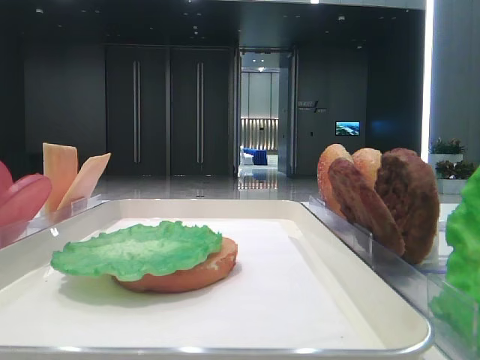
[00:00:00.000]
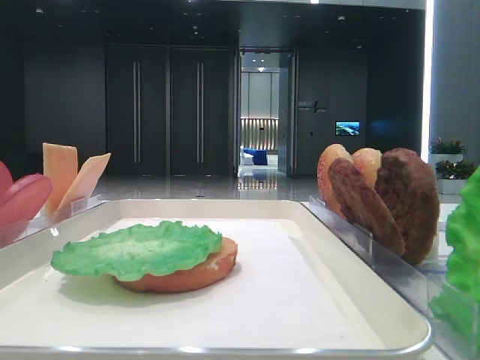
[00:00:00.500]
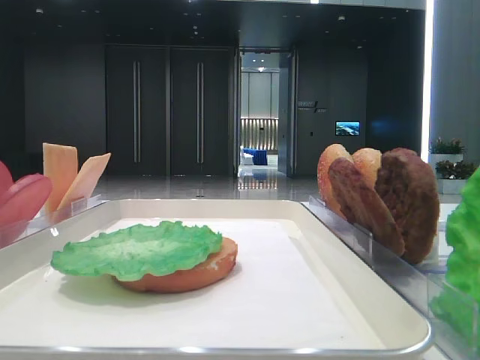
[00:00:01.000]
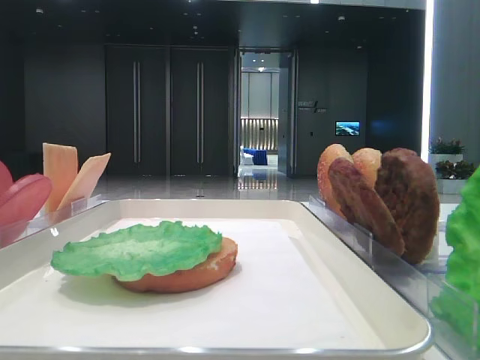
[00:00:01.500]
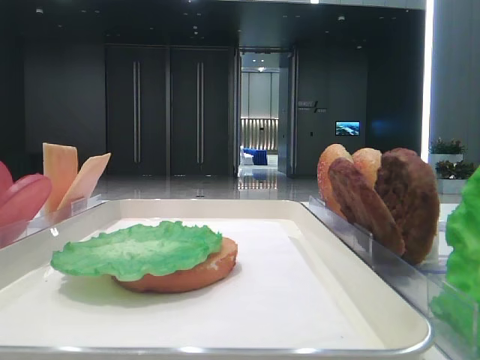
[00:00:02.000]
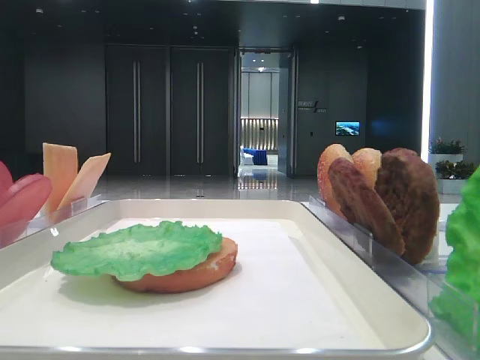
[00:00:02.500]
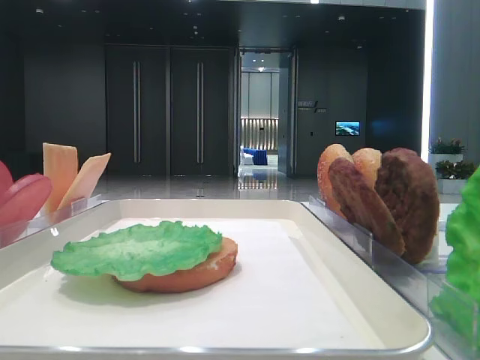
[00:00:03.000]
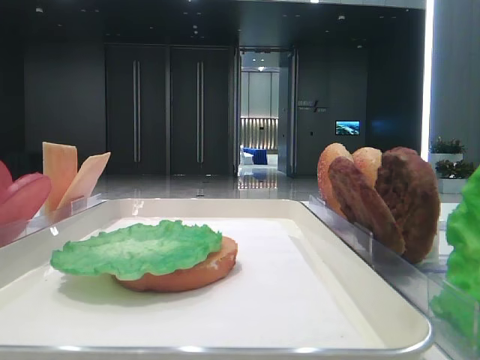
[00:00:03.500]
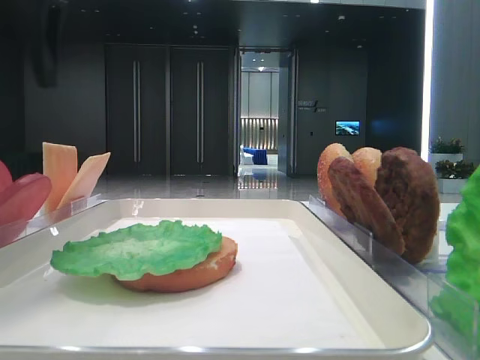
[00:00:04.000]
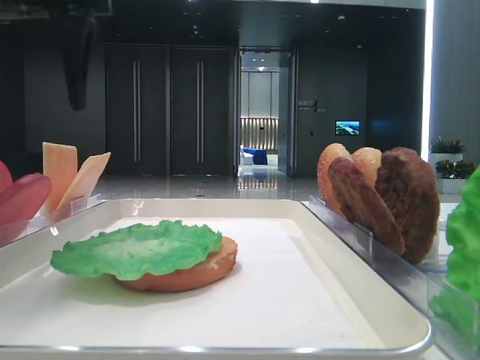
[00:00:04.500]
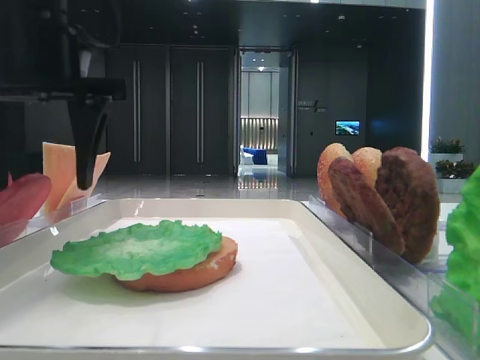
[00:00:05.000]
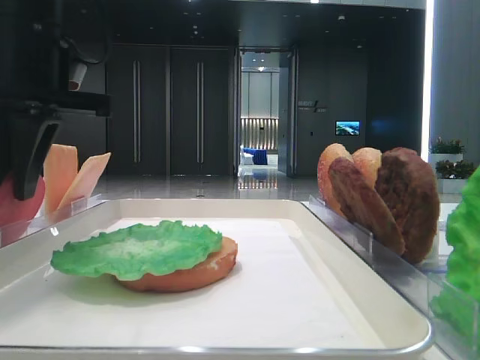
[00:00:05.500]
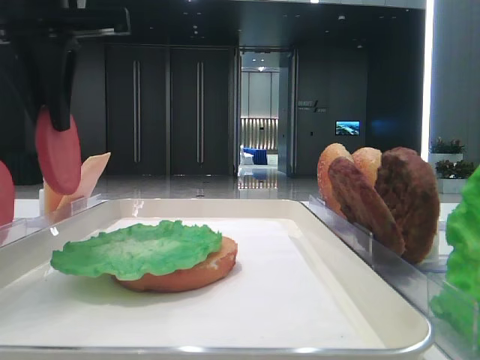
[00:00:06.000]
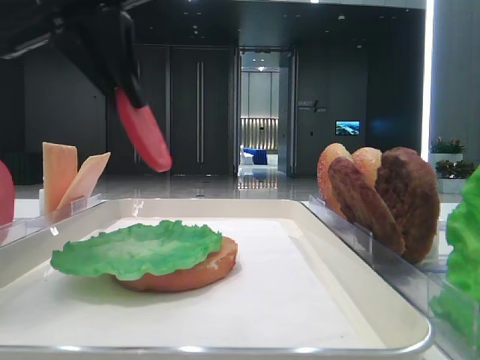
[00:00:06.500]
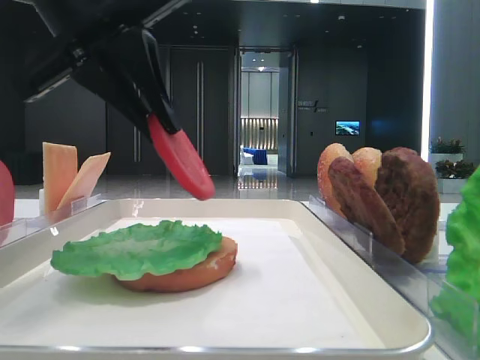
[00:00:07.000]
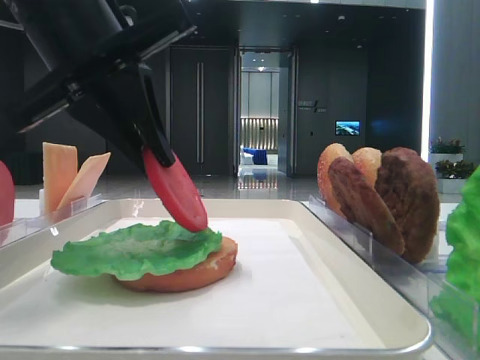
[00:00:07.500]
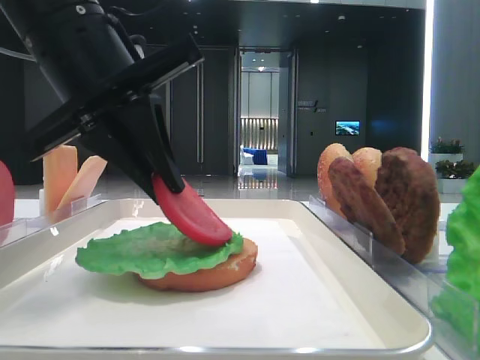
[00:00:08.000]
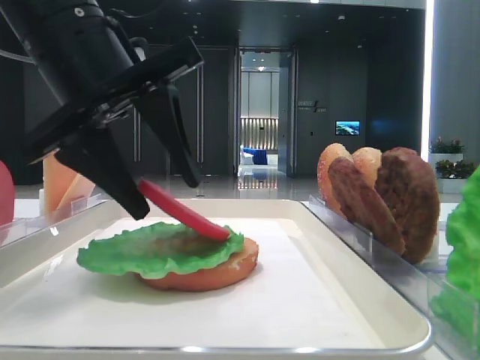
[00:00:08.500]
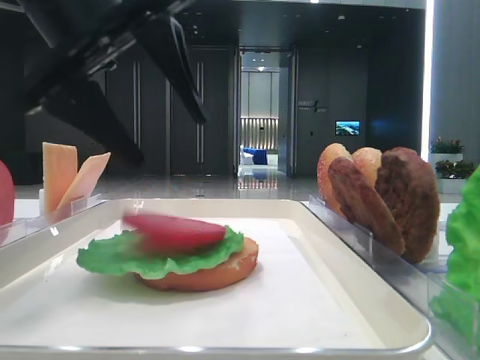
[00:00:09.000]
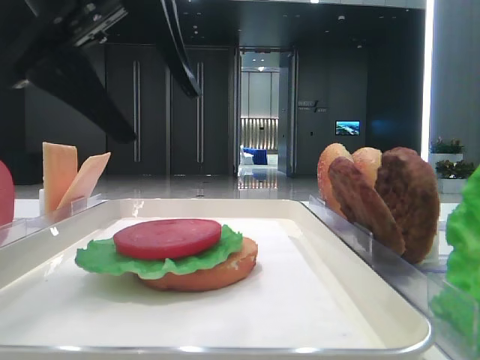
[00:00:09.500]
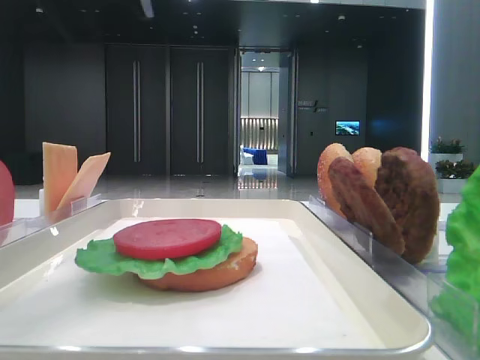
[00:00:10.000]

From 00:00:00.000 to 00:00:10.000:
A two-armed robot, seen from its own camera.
Step, from 00:00:00.000 to 00:00:05.000: Pick up the tomato slice with the left hand.
Step, from 00:00:05.500 to 00:00:09.000: Place the tomato slice on the lettuce leaf with the left hand.
From 00:00:02.000 to 00:00:04.000: The left gripper travels forward and to the right by some 30 cm.
From 00:00:04.000 to 00:00:06.000: The left gripper closes.
From 00:00:06.000 to 00:00:08.000: The left gripper is displaced downward by about 5 cm.
From 00:00:08.000 to 00:00:10.000: The left gripper moves upward, approximately 15 cm, and opens its fingers.

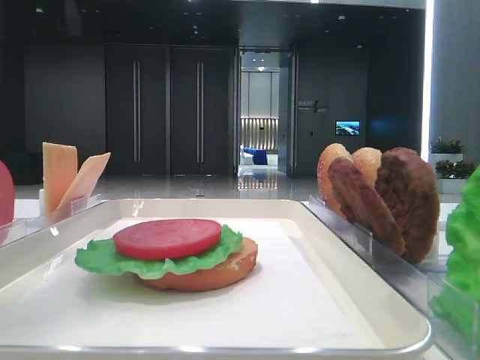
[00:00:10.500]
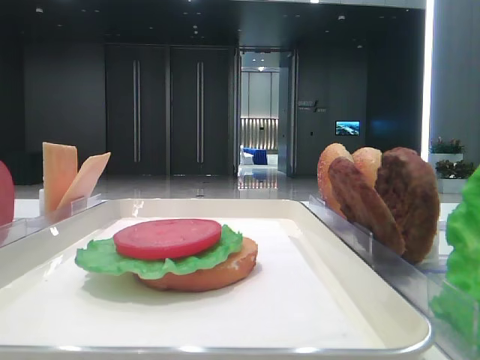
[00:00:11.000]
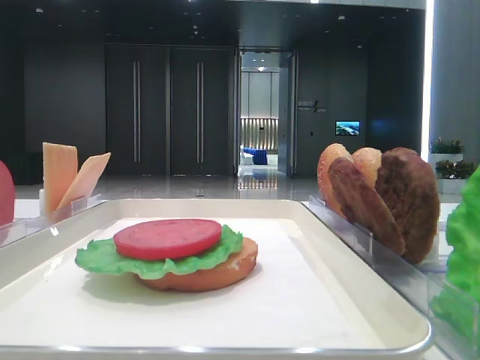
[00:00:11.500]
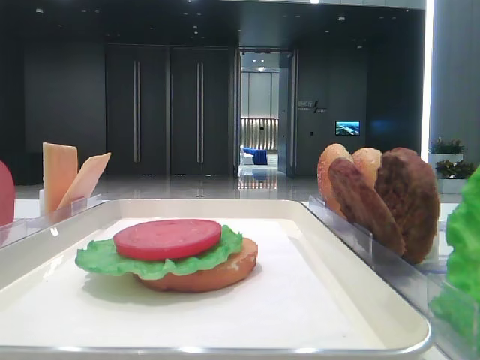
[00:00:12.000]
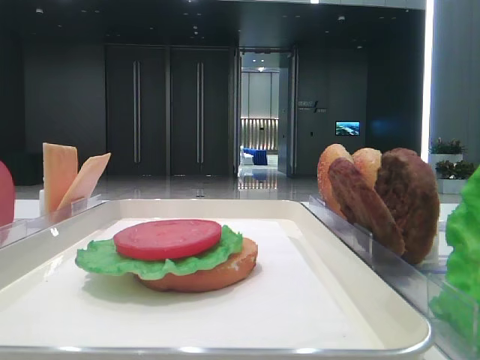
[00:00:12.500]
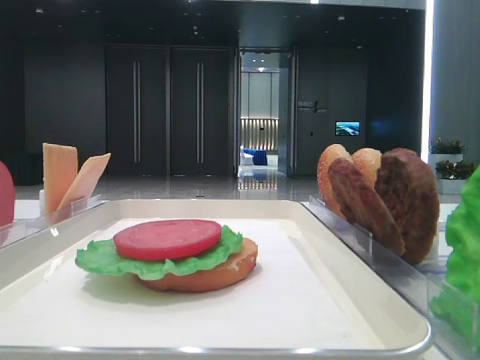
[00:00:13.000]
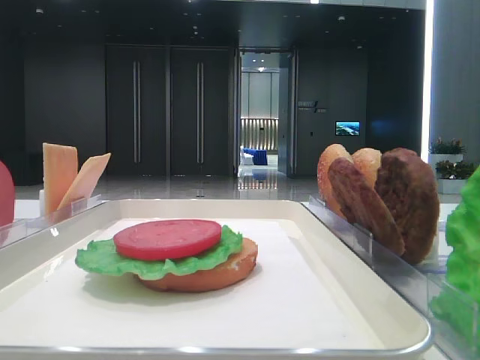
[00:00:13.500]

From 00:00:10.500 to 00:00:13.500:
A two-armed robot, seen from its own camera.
From 00:00:10.500 to 00:00:12.000: The left gripper moves backward and to the left, roughly 25 cm.
